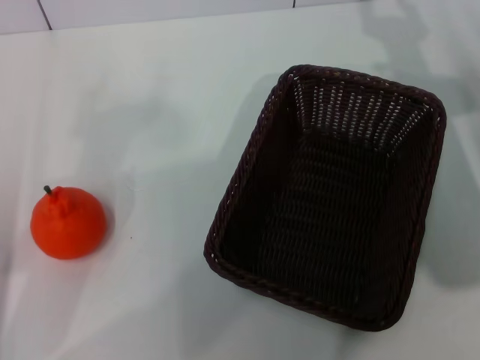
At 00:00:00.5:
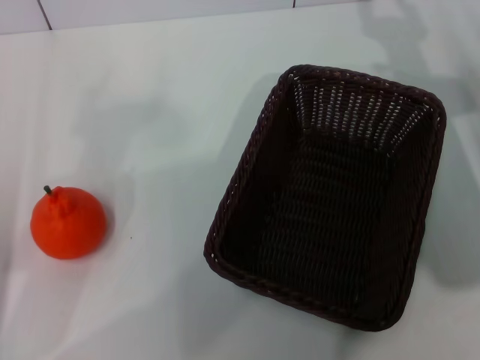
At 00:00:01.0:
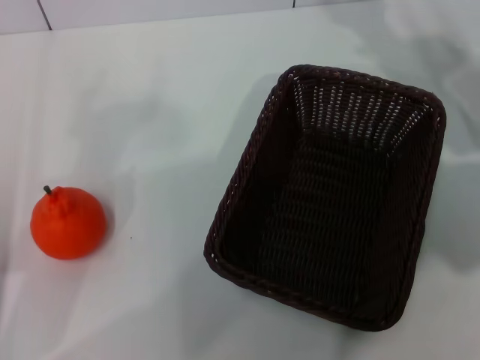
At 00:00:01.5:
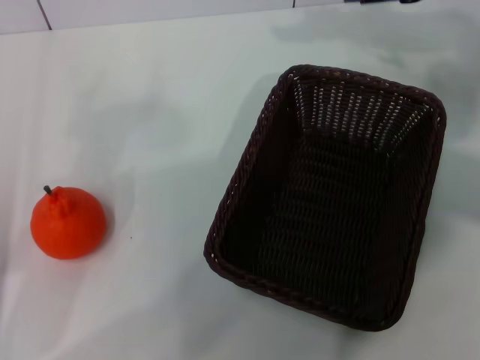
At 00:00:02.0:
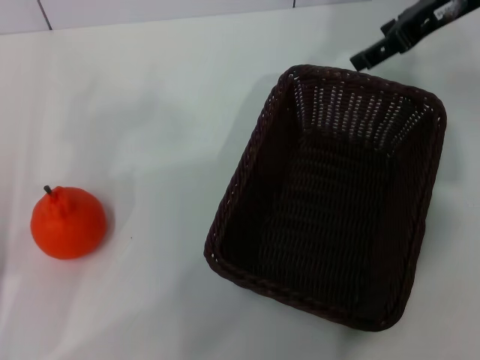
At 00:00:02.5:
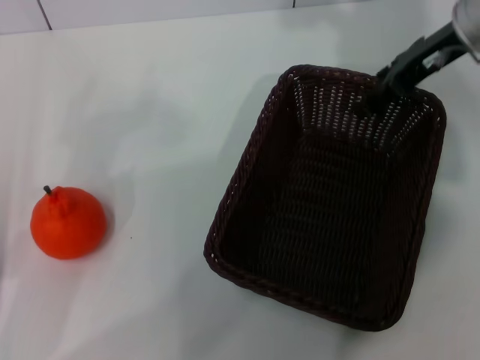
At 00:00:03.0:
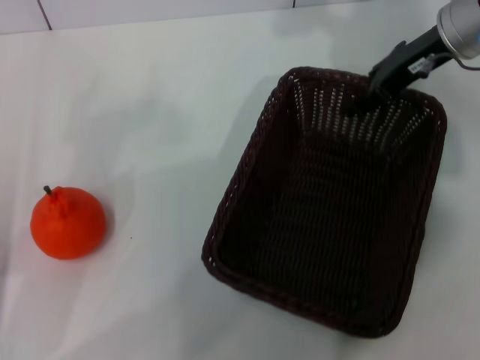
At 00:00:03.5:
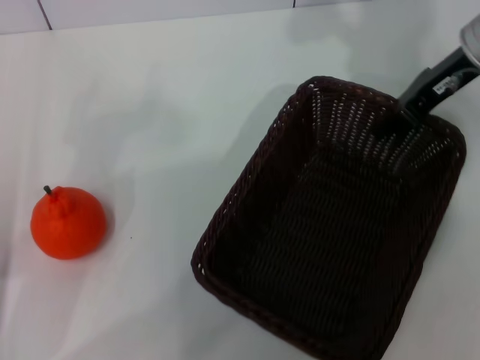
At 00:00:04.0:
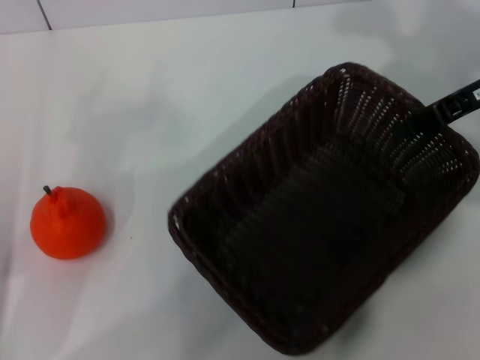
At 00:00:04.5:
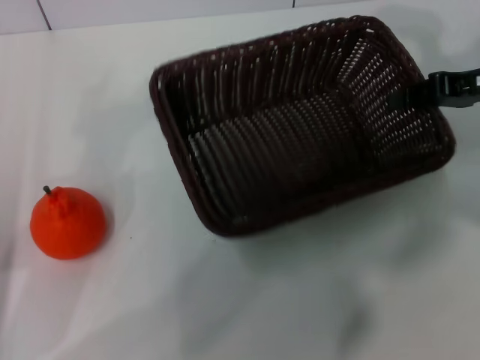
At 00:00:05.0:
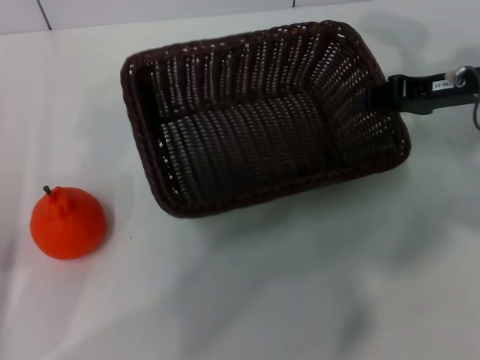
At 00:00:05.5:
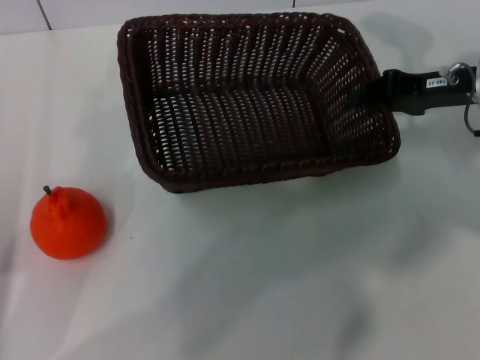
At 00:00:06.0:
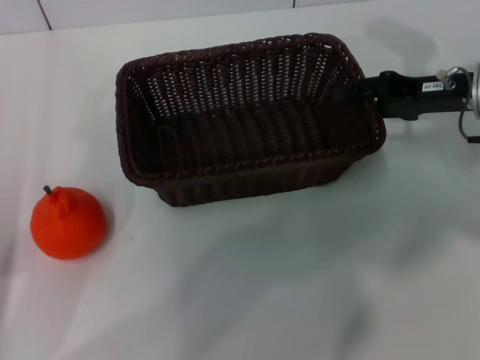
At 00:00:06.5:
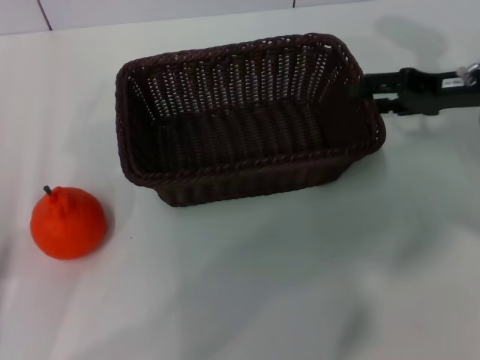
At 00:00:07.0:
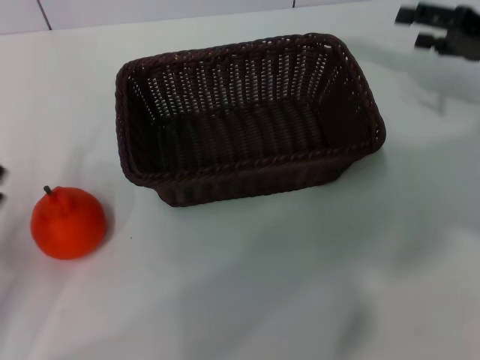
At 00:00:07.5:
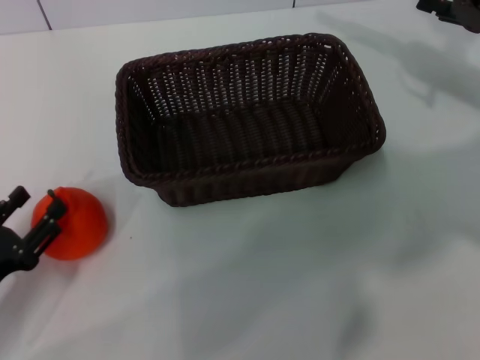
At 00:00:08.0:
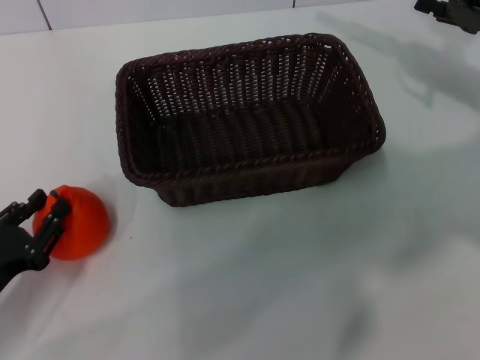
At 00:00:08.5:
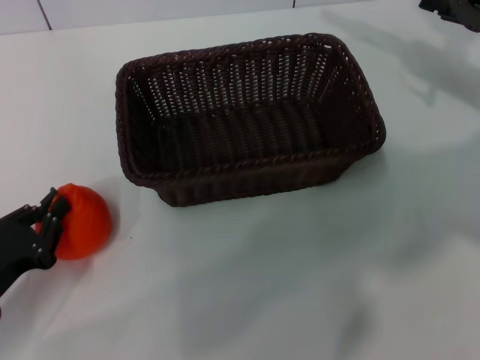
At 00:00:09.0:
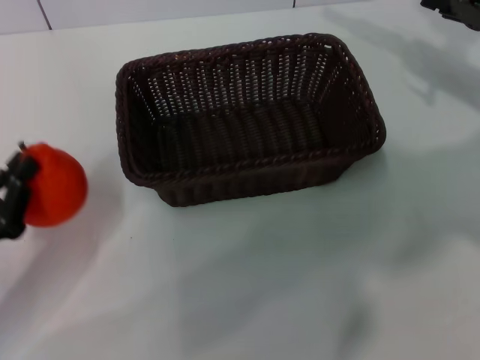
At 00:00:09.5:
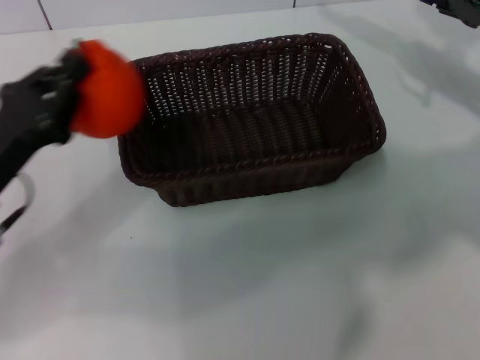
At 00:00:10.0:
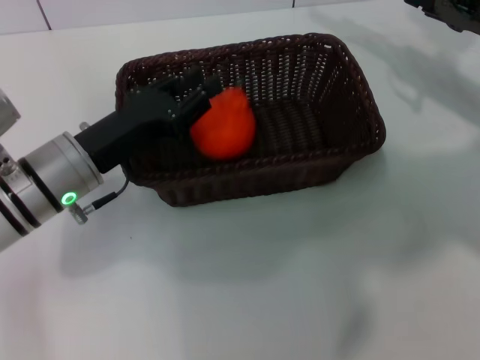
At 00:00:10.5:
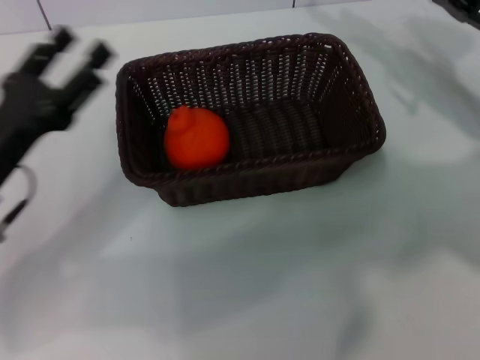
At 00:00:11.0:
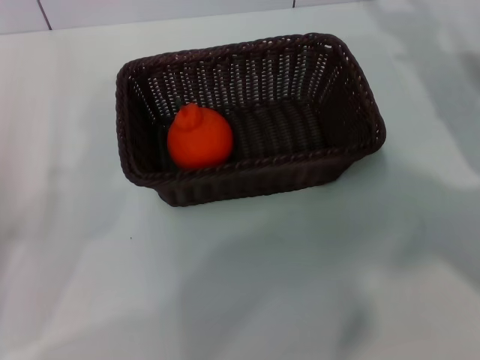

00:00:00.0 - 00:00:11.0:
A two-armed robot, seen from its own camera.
Task of the whole recording: the right gripper pick up the black basket and place it horizontally in the middle of the table, the left gripper pick up the orange and place it into the black basket.
Step, 00:00:00.0 - 00:00:04.0: Pick up the dark basket with the right gripper.
Step, 00:00:04.5 - 00:00:06.5: Place the dark basket in the center of view with the right gripper.
Step, 00:00:07.0 - 00:00:09.0: Pick up the orange with the left gripper.
Step, 00:00:09.5 - 00:00:10.0: Place the orange into the dark basket with the left gripper.
00:00:00.0 - 00:00:02.0: The right gripper goes roughly 15 cm upward and forward, and opens.
00:00:02.0 - 00:00:03.5: The right gripper moves roughly 5 cm, and closes.
00:00:03.5 - 00:00:05.5: The right gripper travels downward by some 5 cm.
00:00:05.5 - 00:00:07.5: The right gripper moves roughly 5 cm, and opens its fingers. Meanwhile the left gripper moves downward, approximately 5 cm.
00:00:07.5 - 00:00:09.0: The left gripper closes its fingers.
00:00:09.0 - 00:00:11.0: The right gripper changes place by approximately 5 cm. The left gripper goes to the right and returns, roughly 10 cm each way, and opens its fingers.

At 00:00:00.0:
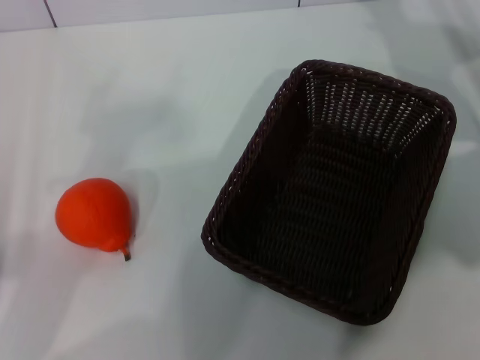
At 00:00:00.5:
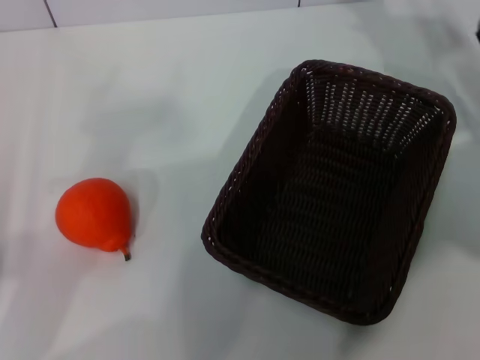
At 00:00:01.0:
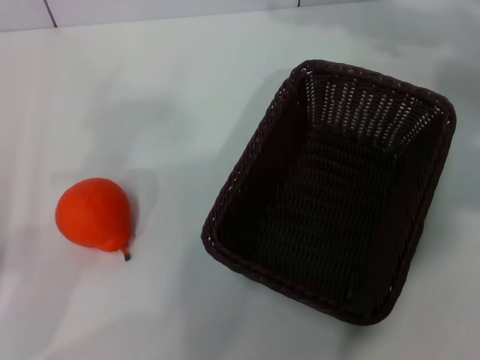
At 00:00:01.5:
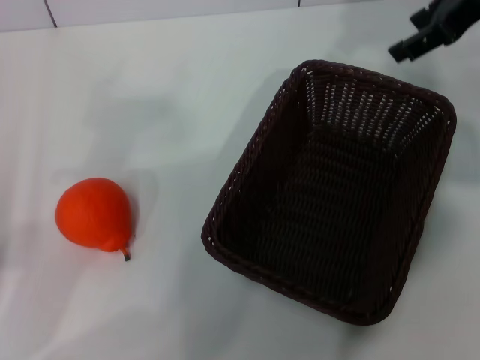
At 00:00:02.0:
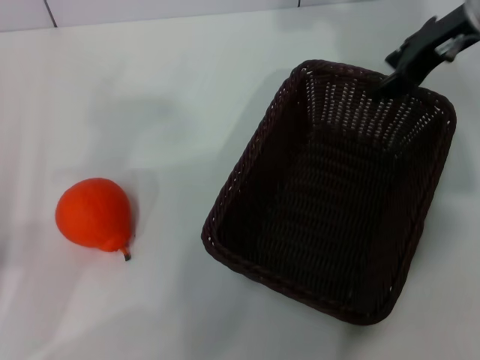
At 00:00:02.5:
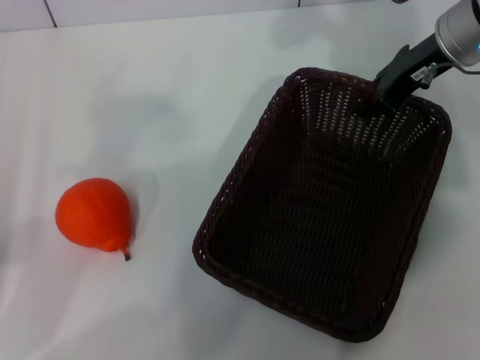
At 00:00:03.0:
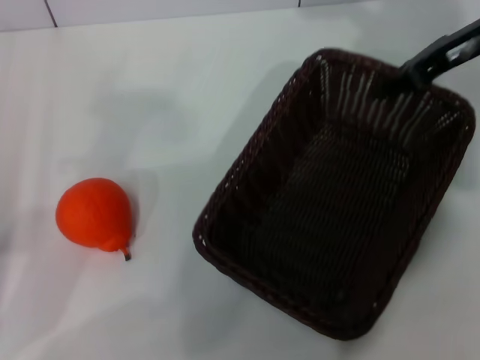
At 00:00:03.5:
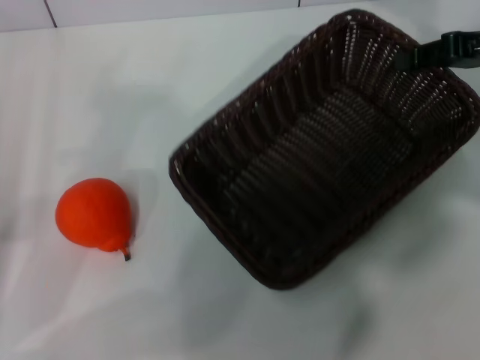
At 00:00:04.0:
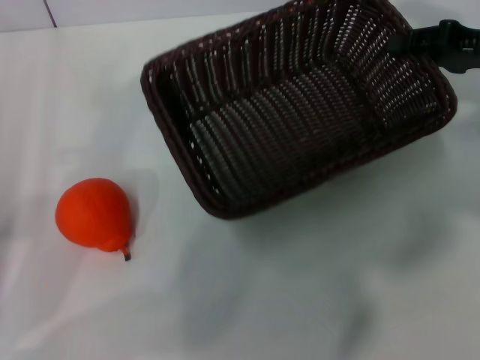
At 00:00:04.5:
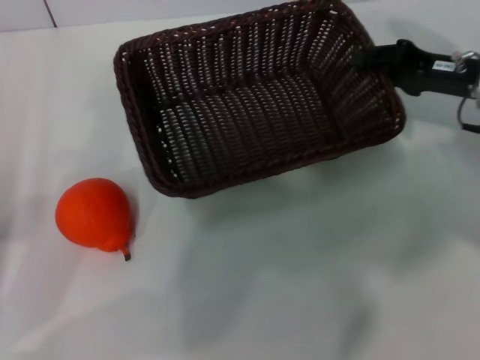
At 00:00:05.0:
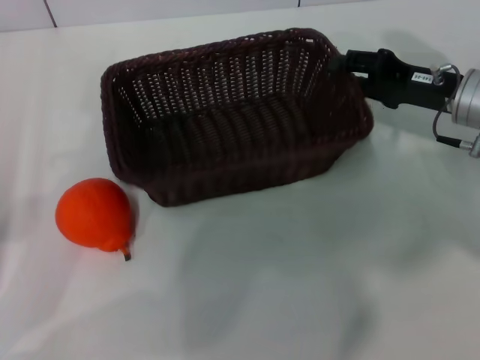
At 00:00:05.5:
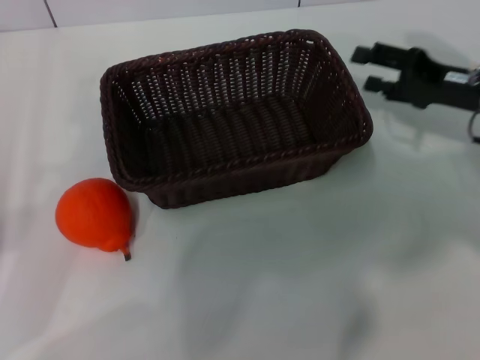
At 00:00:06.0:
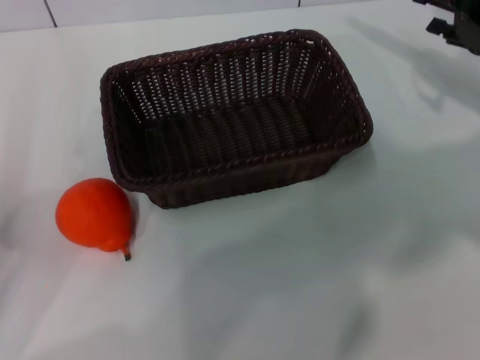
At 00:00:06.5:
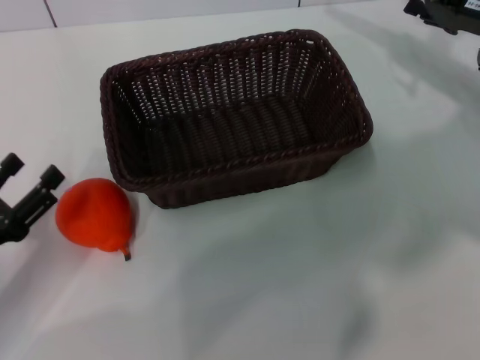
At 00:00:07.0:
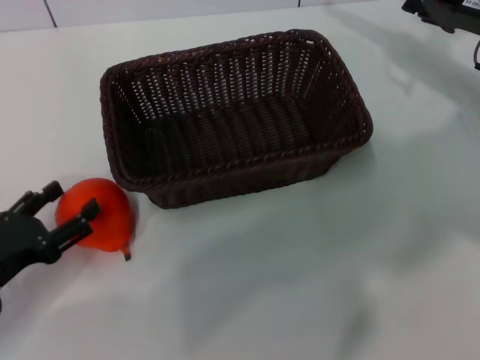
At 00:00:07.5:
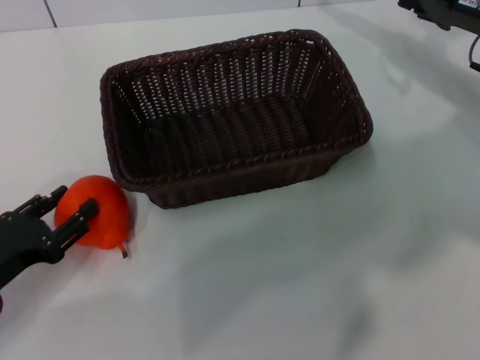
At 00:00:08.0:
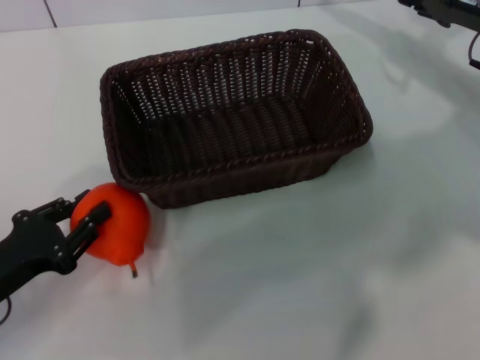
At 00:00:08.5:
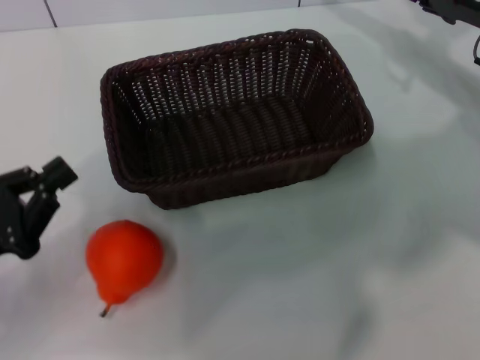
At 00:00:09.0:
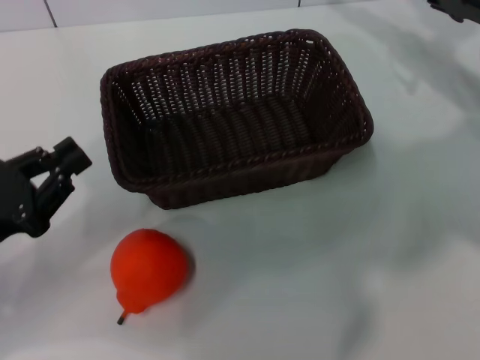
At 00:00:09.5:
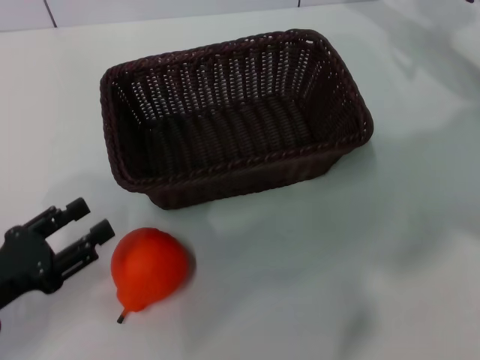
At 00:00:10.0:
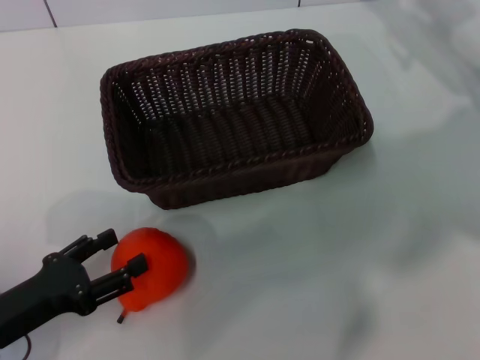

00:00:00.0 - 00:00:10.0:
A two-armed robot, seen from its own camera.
Task of the whole recording: the right gripper pick up the black basket and place it horizontally in the middle of the table, the left gripper pick up the orange and place it into the black basket.
Step, 00:00:00.0 - 00:00:02.5: Pick up the dark basket with the right gripper.
Step, 00:00:03.0 - 00:00:05.0: Place the dark basket in the center of view with the right gripper.
00:00:00.0 - 00:00:02.0: The right gripper heads upward and to the left, covering some 10 cm.
00:00:02.0 - 00:00:04.0: The right gripper shifts approximately 10 cm to the right and downward, and closes up.
00:00:04.0 - 00:00:06.0: The right gripper opens its fingers.
00:00:06.0 - 00:00:08.0: The left gripper shifts by approximately 5 cm, and closes up.
00:00:08.0 - 00:00:10.0: The left gripper opens its fingers.

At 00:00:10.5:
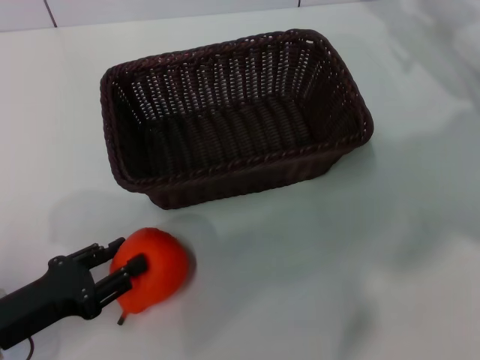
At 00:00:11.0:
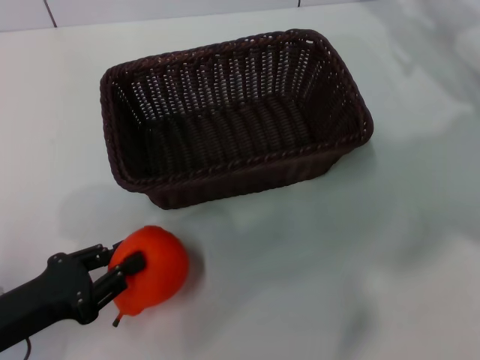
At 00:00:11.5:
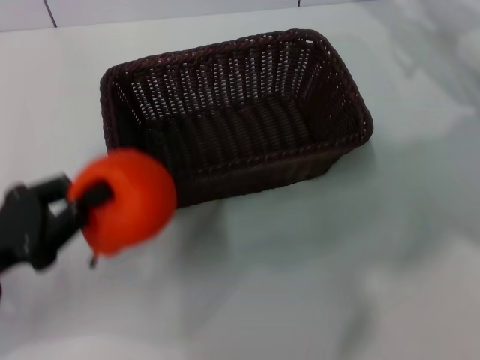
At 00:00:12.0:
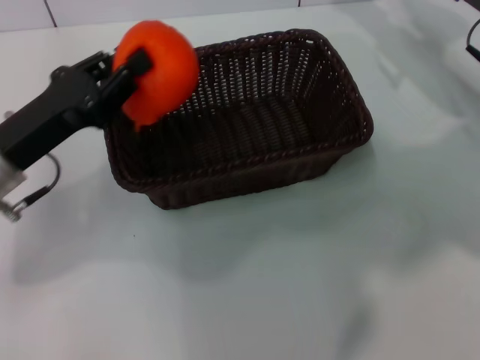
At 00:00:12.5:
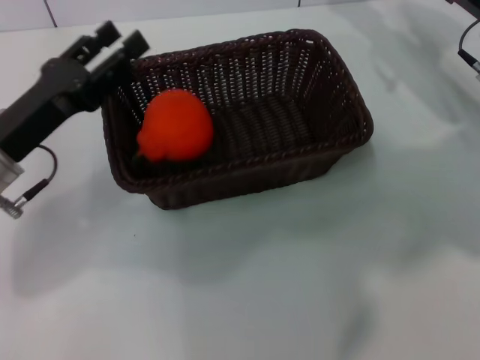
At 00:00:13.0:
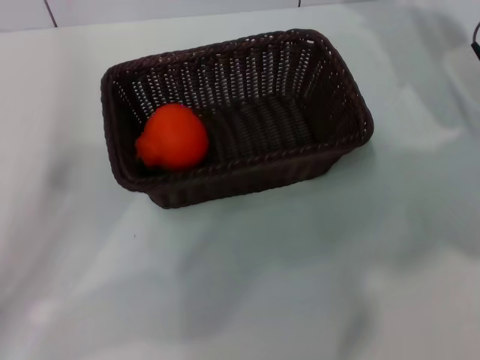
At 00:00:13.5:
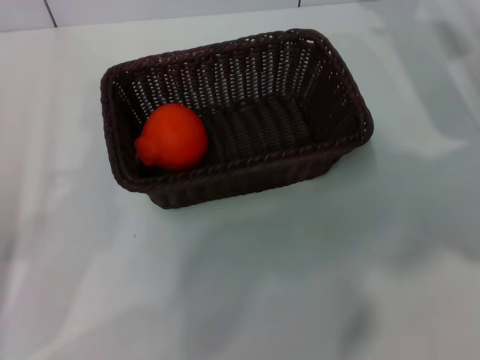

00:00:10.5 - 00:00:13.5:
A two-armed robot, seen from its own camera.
Task of the whole recording: the right gripper pick up the black basket and place it horizontally in the middle of the table, the left gripper pick up the orange and place it into the black basket.
Step, 00:00:11.5 - 00:00:12.0: Place the orange into the dark basket with the left gripper.
00:00:10.5 - 00:00:12.0: The left gripper heads forward and upward, covering about 15 cm, and closes.
00:00:12.0 - 00:00:13.5: The left gripper heads backward and to the left, covering approximately 15 cm, and opens its fingers.
